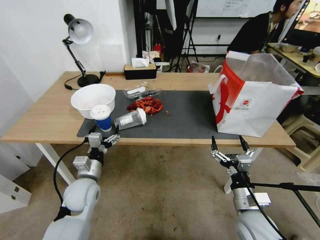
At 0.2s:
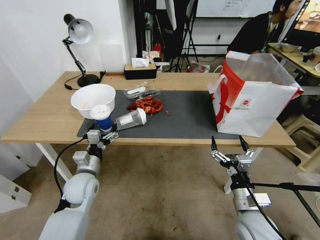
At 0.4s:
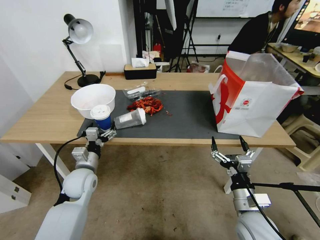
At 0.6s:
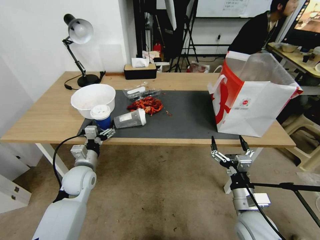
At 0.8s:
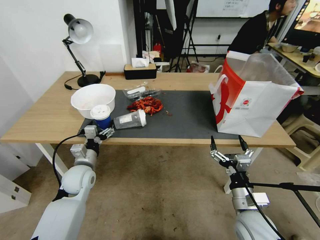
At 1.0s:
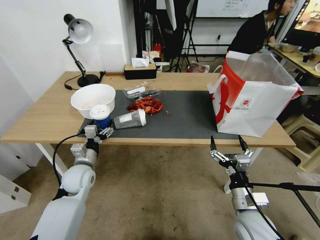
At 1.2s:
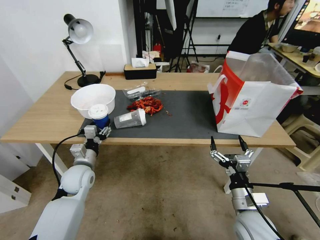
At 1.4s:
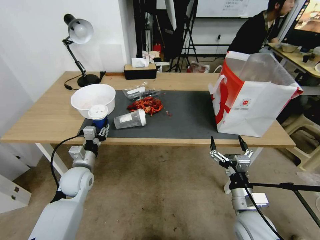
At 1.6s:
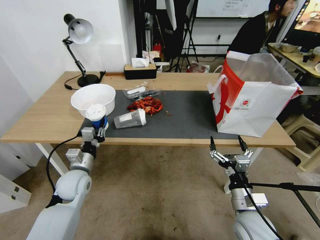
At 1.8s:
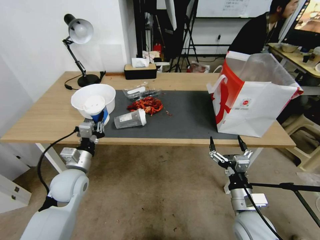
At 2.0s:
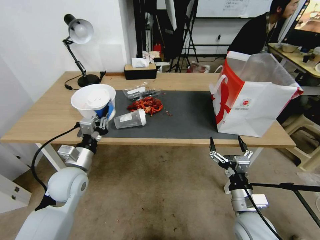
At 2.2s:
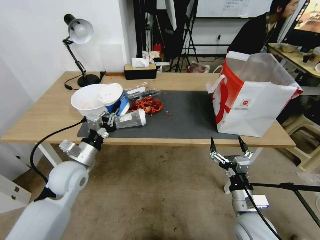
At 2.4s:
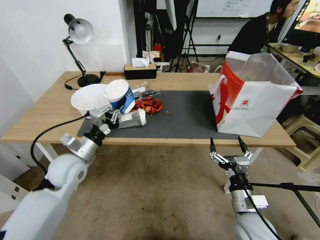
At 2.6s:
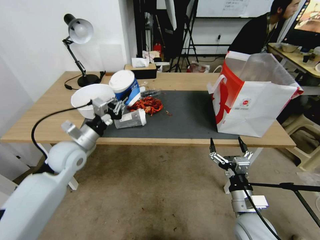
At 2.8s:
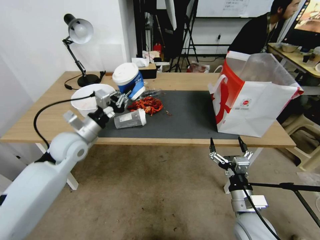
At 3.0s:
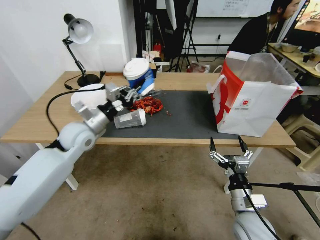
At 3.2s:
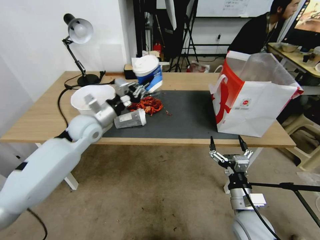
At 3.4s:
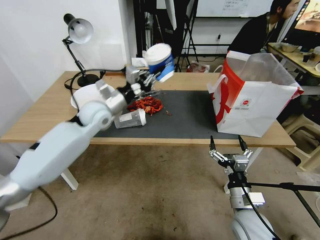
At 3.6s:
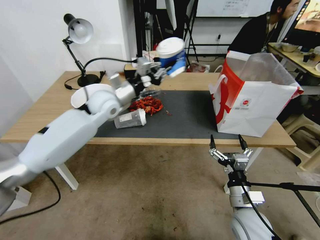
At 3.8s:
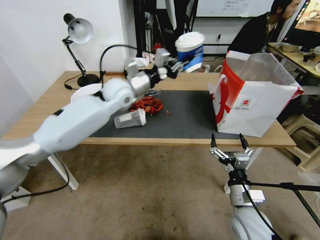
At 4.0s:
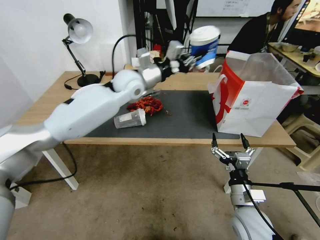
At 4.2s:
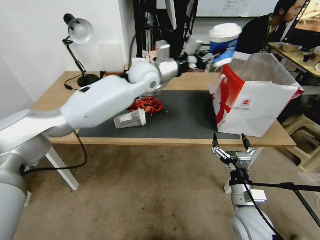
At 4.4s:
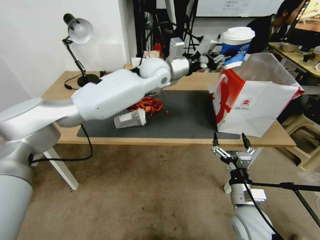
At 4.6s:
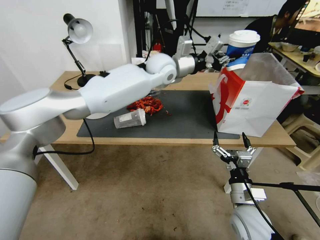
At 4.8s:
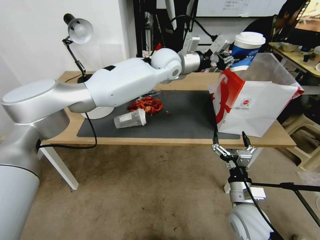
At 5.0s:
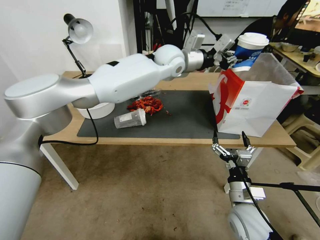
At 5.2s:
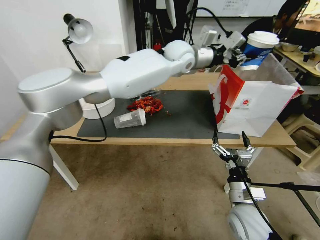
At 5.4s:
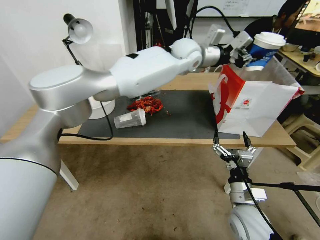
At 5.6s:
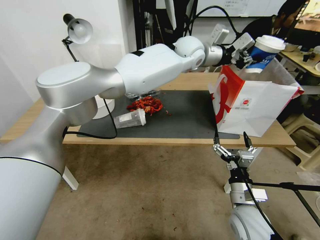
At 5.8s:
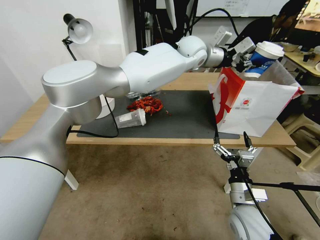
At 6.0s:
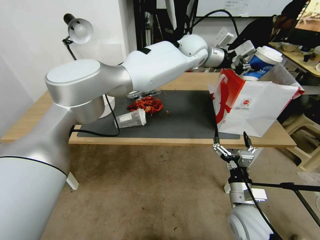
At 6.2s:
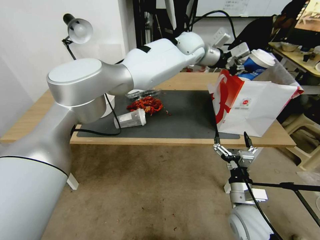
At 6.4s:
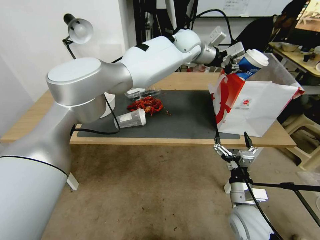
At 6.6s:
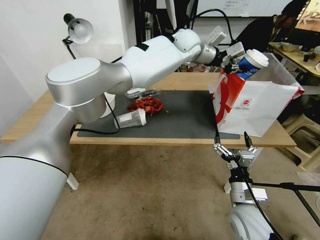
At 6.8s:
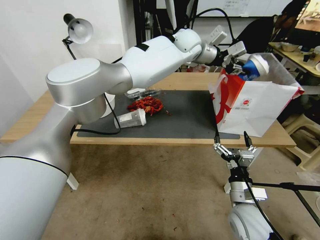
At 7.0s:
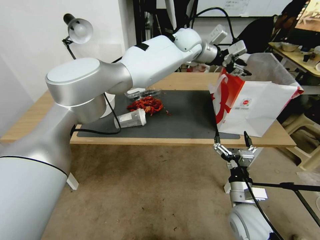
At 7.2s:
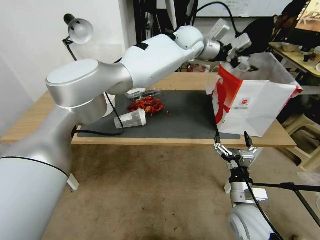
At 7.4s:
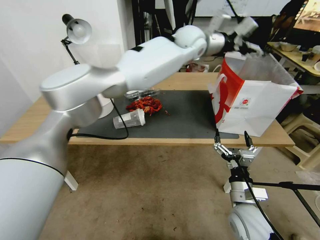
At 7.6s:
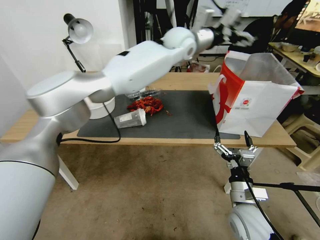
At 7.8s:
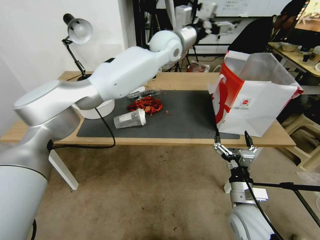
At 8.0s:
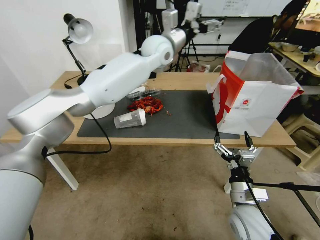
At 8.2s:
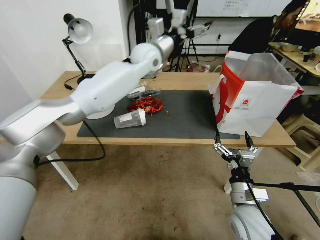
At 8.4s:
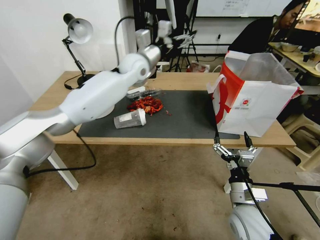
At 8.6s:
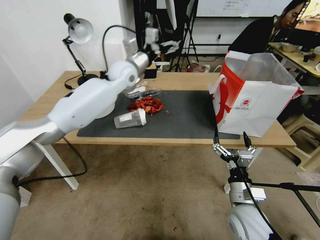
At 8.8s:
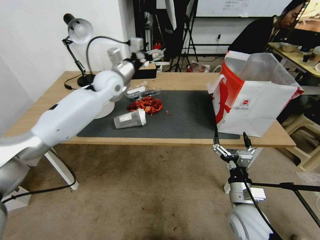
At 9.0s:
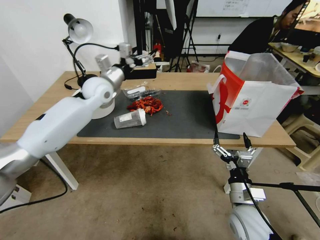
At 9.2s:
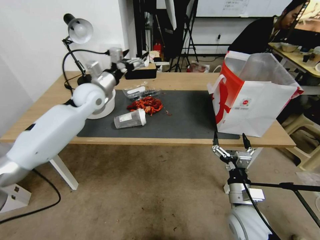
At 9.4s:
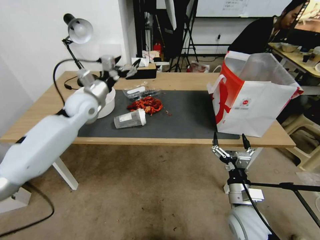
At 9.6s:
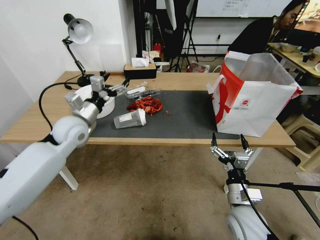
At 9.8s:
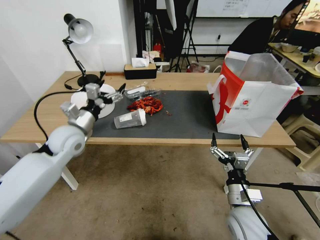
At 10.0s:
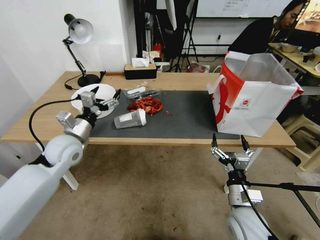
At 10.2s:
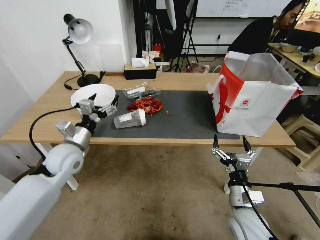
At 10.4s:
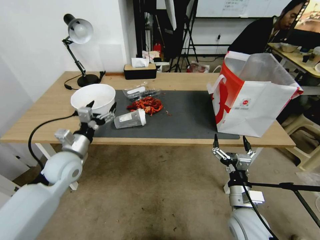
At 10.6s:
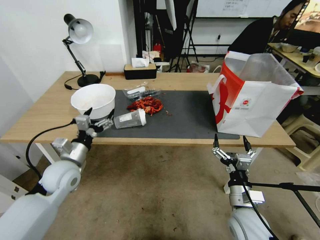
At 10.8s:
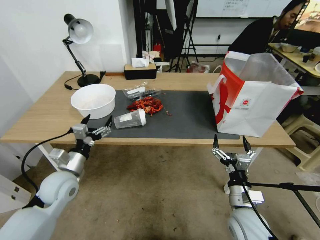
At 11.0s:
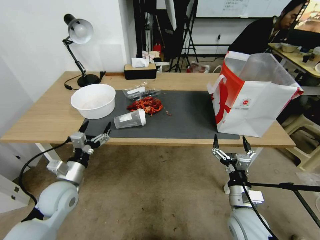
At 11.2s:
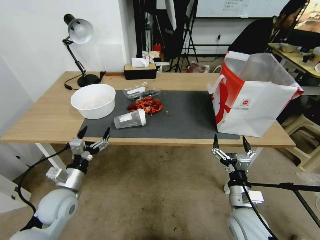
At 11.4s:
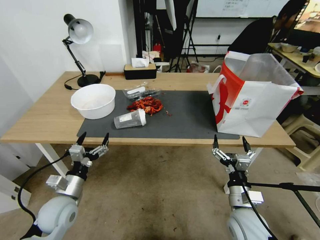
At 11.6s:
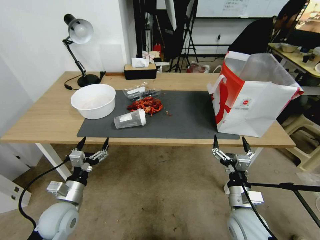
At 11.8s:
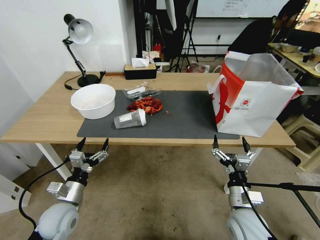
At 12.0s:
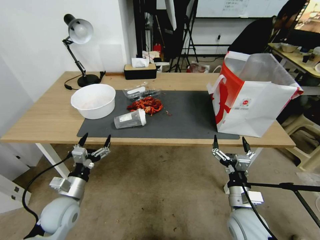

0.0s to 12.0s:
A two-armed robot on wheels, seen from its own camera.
0.0s to 1.6s: The left gripper shifts by about 5 cm, and closes up.
1.6s to 3.0s: The left gripper travels upward and forward by approximately 15 cm.
3.0s to 4.4s: The left gripper heads to the right, forward and upward, covering roughly 30 cm.
4.4s to 6.0s: The left gripper goes about 15 cm to the right and forward.
6.0s to 7.6s: The left gripper moves to the left, approximately 5 cm, and opens up.
7.6s to 9.0s: The left gripper goes some 30 cm to the left and downward.
9.0s to 10.4s: The left gripper travels backward, downward and to the left by about 25 cm.
10.4s to 12.0s: The left gripper is displaced backward and downward by about 15 cm.

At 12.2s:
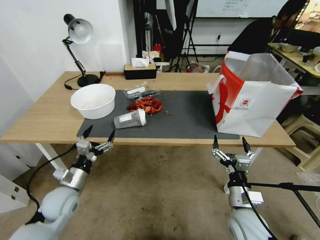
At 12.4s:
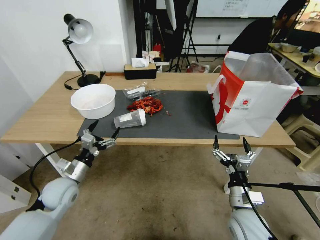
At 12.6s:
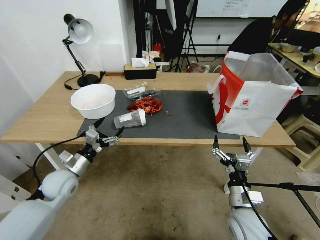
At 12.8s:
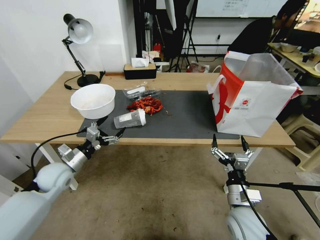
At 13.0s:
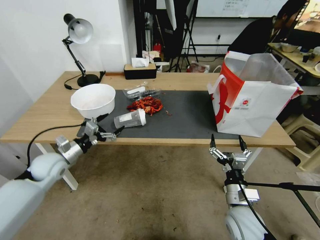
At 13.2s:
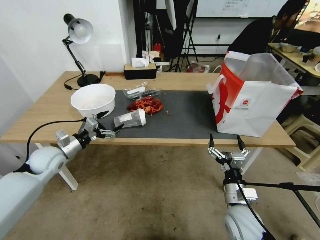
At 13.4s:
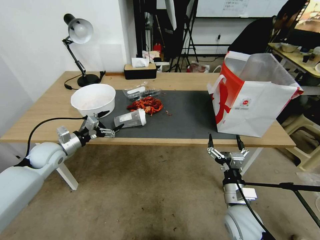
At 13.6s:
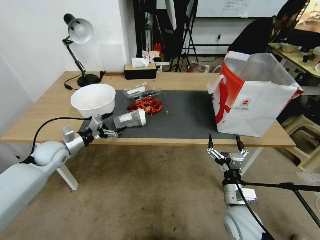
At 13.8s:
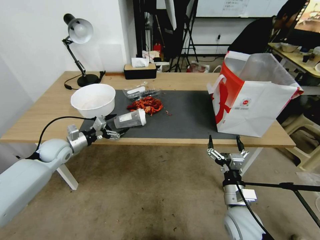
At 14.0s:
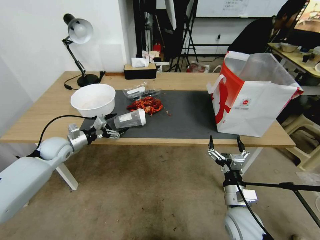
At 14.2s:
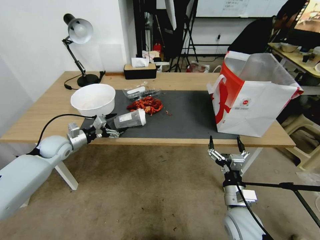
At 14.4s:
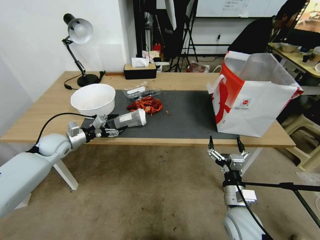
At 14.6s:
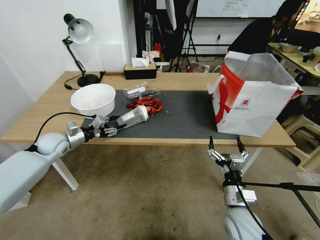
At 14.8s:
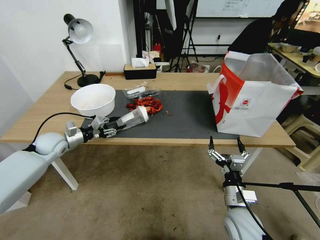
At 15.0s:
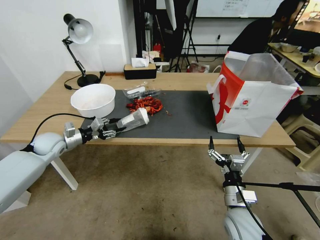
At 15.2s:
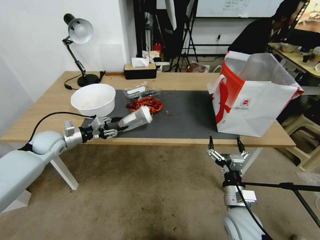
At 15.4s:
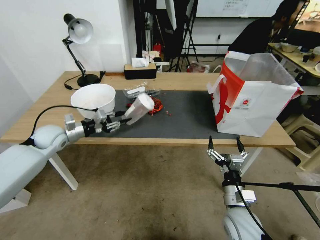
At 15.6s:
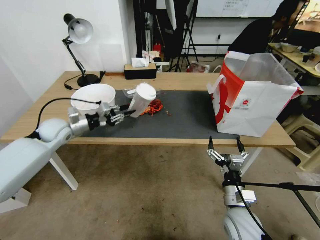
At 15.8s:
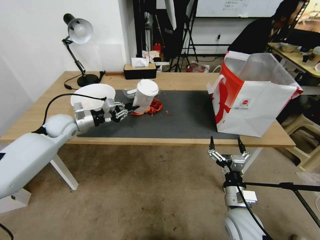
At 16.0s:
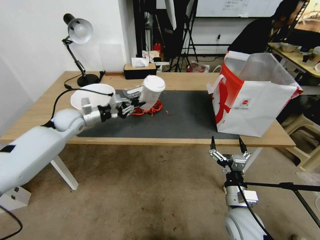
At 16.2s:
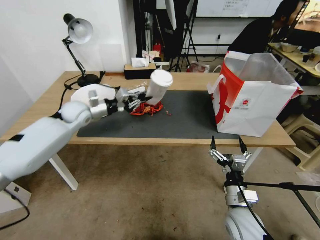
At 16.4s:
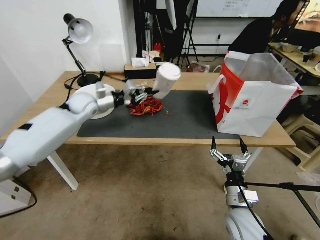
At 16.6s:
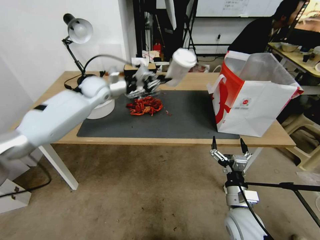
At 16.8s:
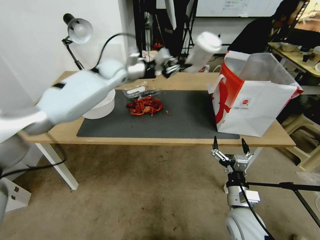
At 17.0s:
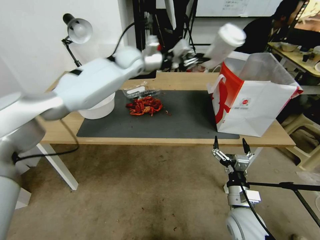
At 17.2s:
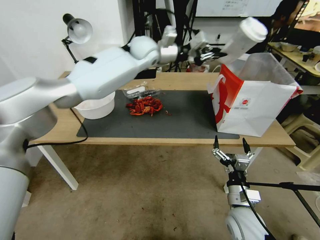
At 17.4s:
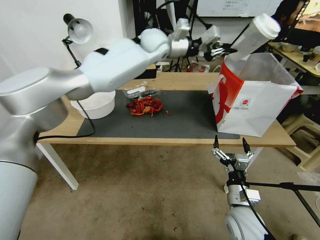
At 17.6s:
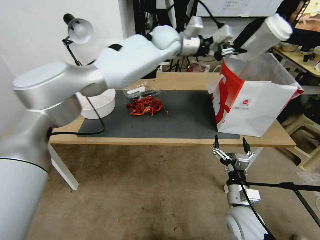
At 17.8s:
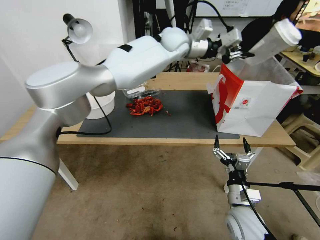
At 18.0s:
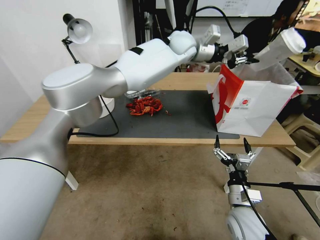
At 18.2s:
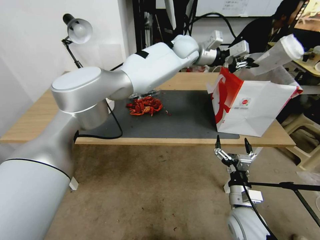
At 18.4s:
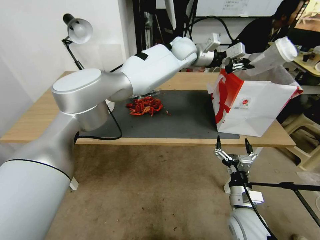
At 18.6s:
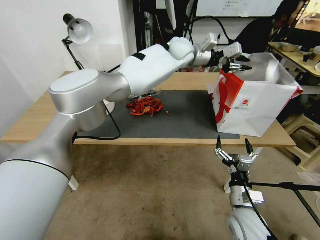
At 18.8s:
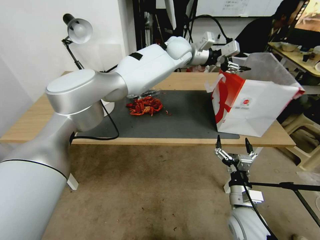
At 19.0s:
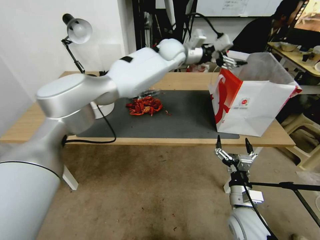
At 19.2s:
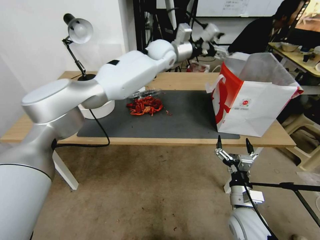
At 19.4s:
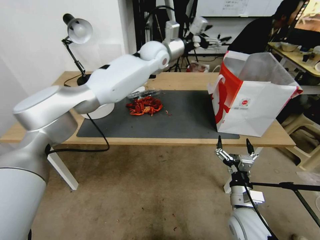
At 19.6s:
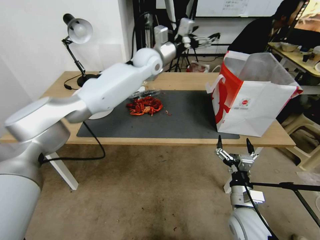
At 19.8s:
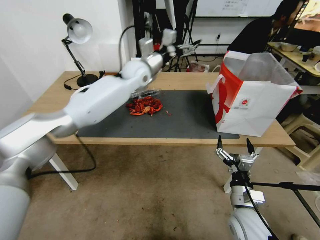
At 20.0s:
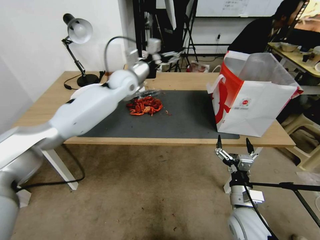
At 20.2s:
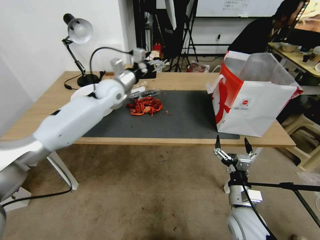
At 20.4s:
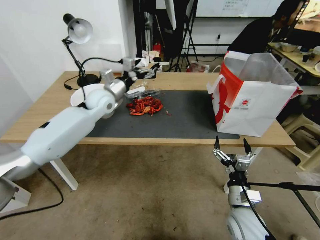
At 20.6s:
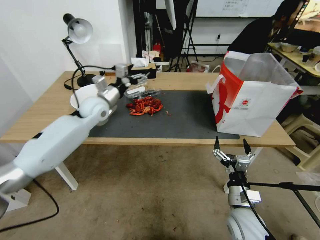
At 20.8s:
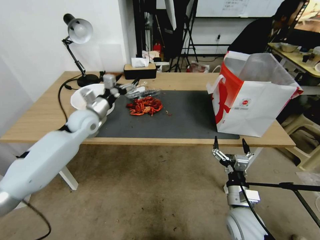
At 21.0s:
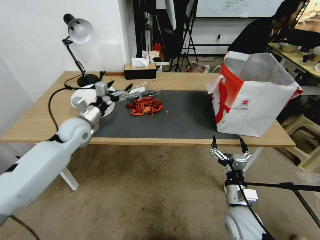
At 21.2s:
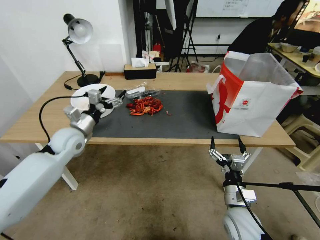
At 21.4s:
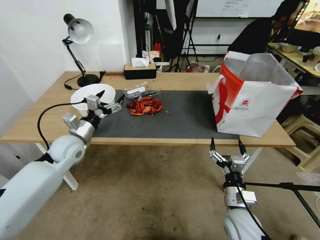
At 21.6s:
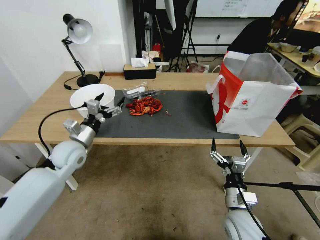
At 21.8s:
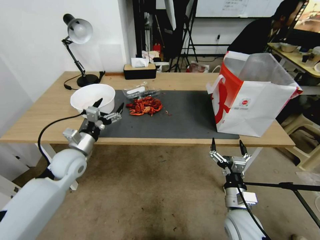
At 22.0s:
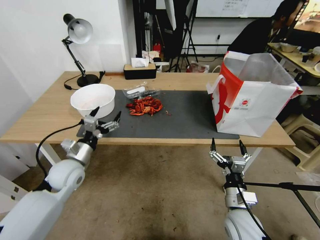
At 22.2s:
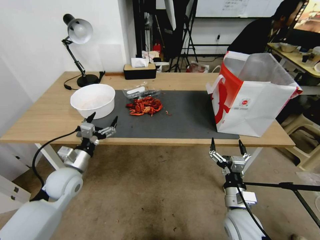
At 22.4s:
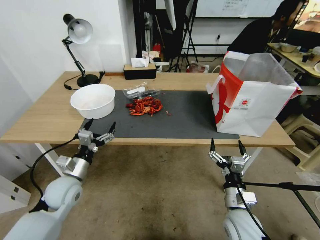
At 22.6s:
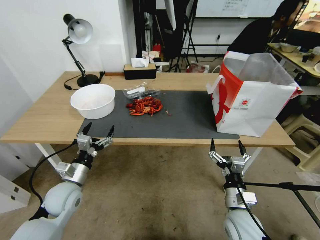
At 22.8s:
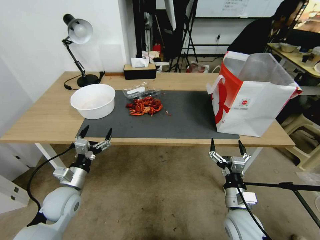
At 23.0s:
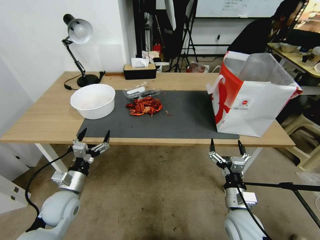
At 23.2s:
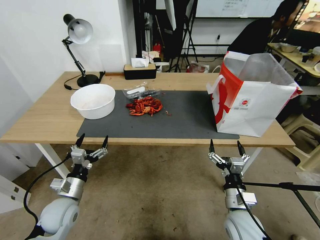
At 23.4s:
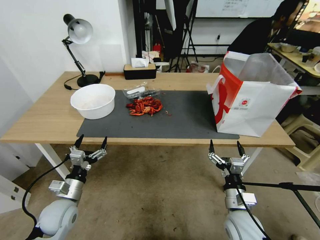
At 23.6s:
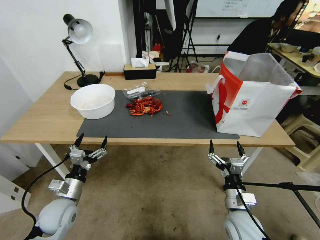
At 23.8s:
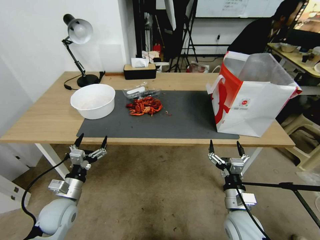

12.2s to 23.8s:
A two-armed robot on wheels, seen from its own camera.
12.2s to 13.6s: The left gripper goes approximately 20 cm forward, to the left and upward.
13.6s to 15.0s: The left gripper closes.
15.0s to 16.6s: The left gripper shifts about 25 cm to the right, upward and forward, and closes its fingers.
16.6s to 18.0s: The left gripper shifts approximately 35 cm to the right and upward.
18.0s to 19.4s: The left gripper heads to the left, covering approximately 10 cm, and opens.
19.4s to 21.0s: The left gripper moves to the left, downward and backward, roughly 35 cm.
21.0s to 22.4s: The left gripper moves backward and downward, about 20 cm.
22.4s to 23.8s: The left gripper moves backward, about 5 cm.
